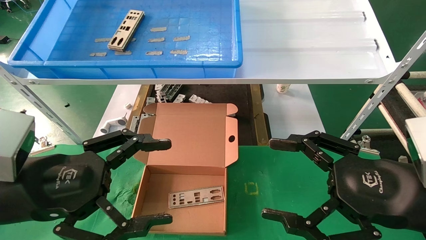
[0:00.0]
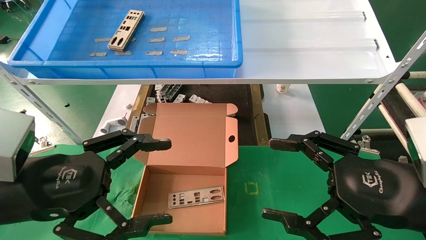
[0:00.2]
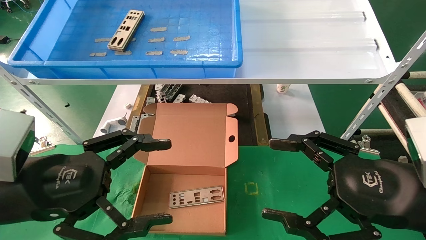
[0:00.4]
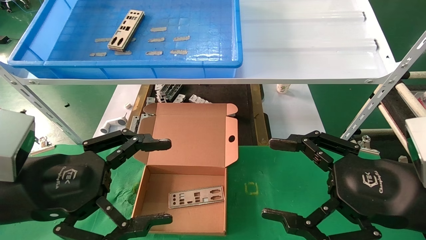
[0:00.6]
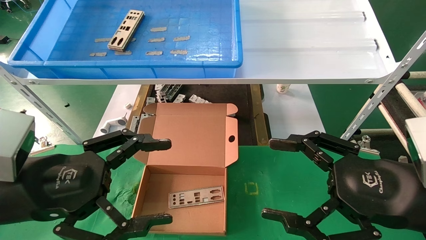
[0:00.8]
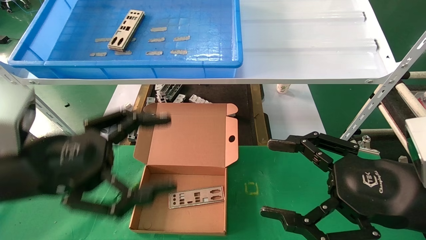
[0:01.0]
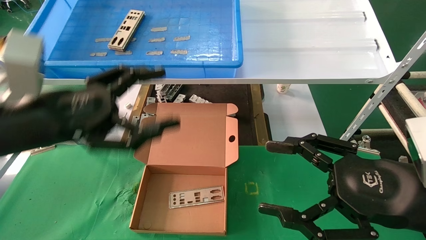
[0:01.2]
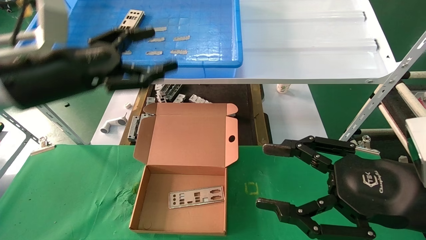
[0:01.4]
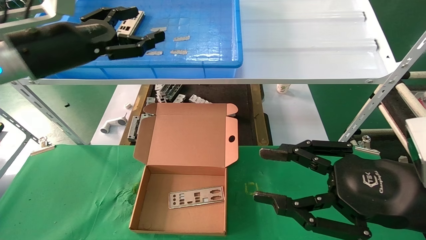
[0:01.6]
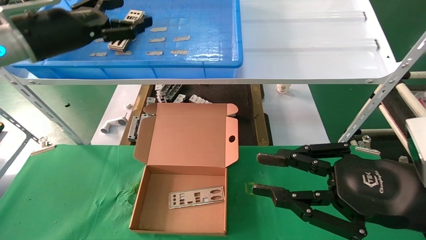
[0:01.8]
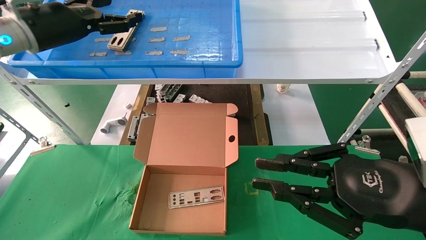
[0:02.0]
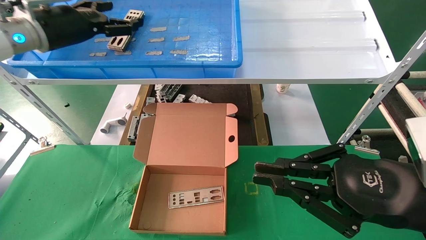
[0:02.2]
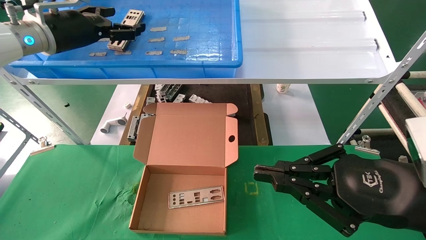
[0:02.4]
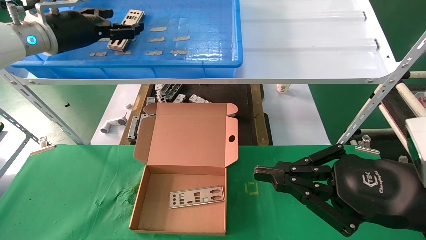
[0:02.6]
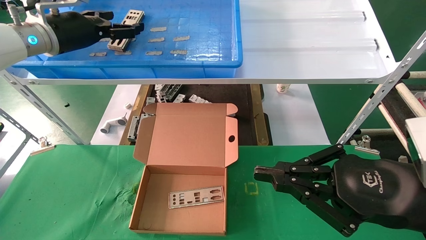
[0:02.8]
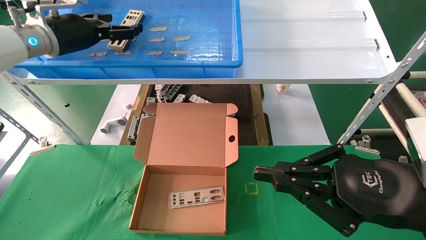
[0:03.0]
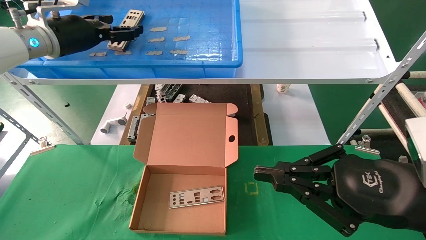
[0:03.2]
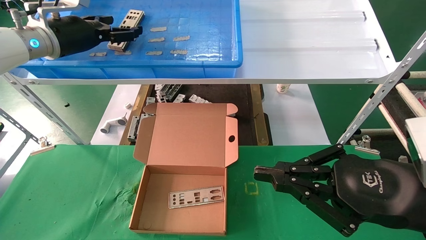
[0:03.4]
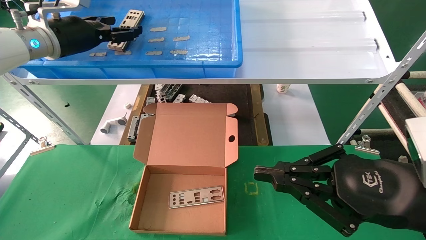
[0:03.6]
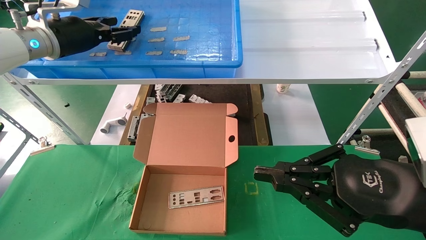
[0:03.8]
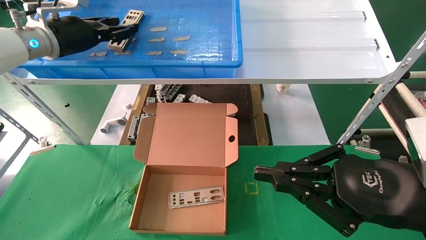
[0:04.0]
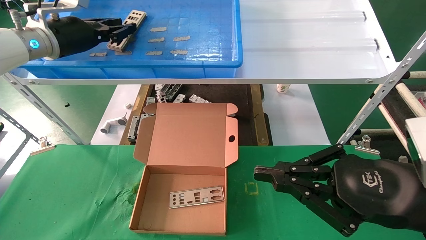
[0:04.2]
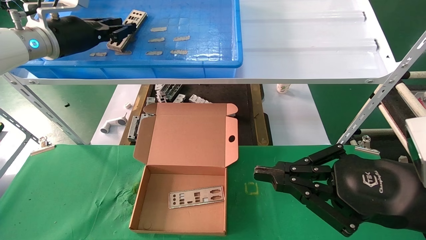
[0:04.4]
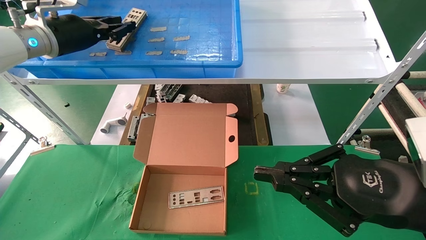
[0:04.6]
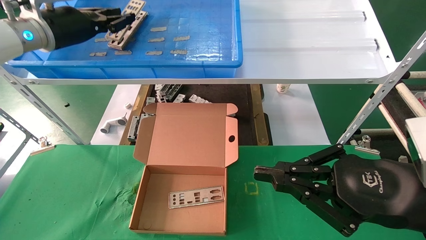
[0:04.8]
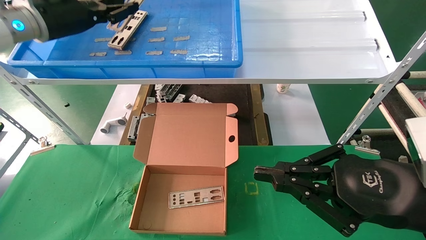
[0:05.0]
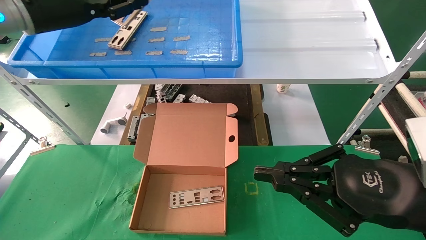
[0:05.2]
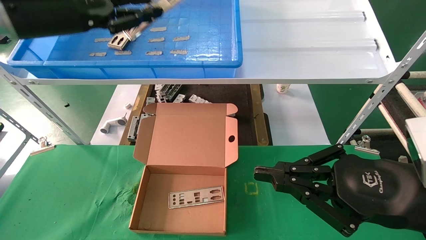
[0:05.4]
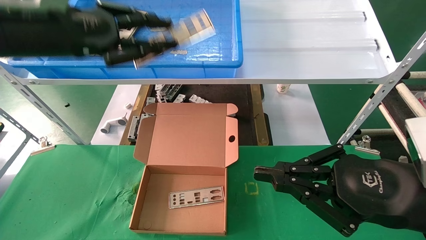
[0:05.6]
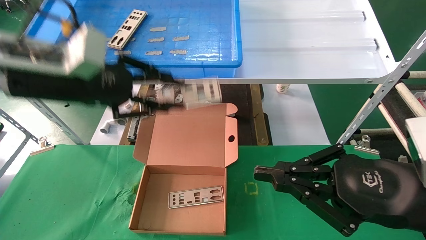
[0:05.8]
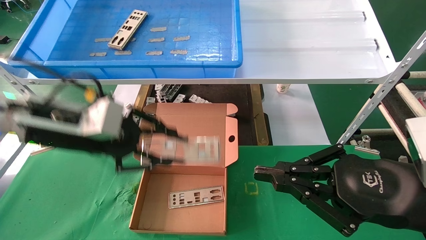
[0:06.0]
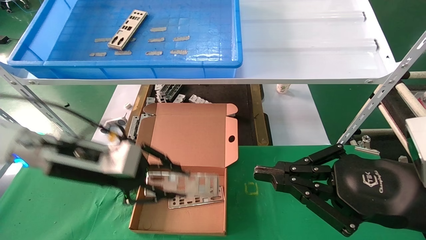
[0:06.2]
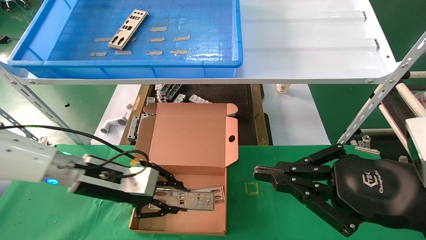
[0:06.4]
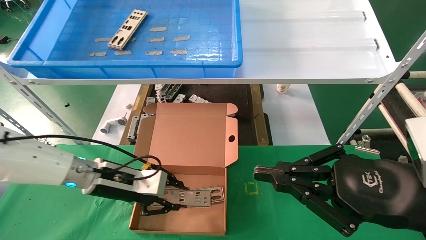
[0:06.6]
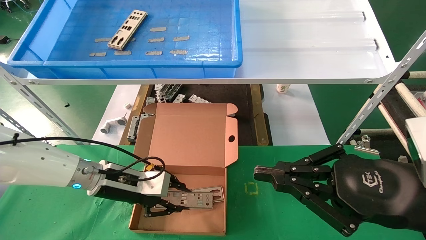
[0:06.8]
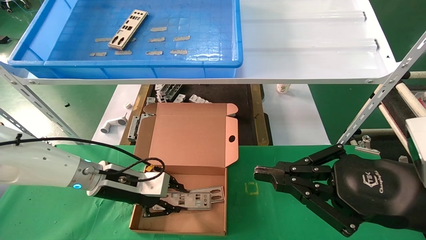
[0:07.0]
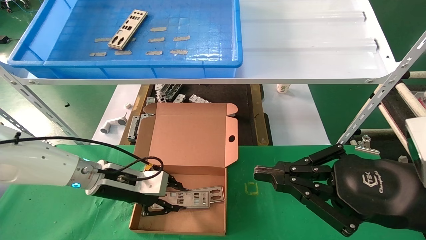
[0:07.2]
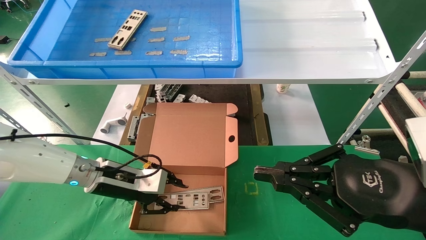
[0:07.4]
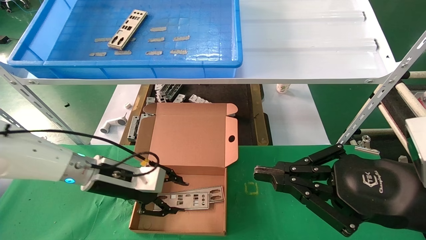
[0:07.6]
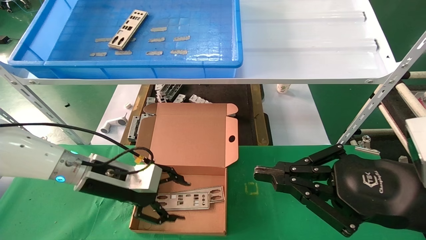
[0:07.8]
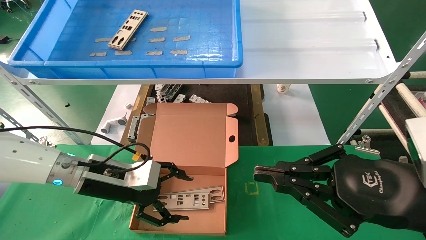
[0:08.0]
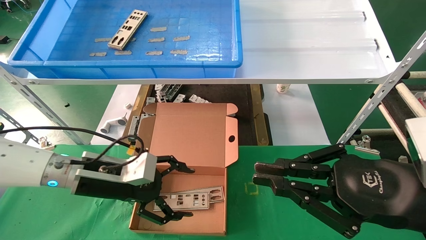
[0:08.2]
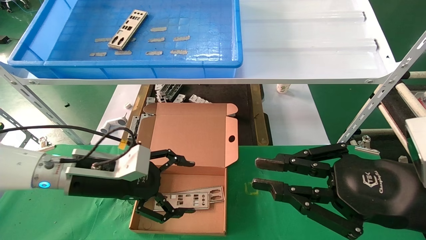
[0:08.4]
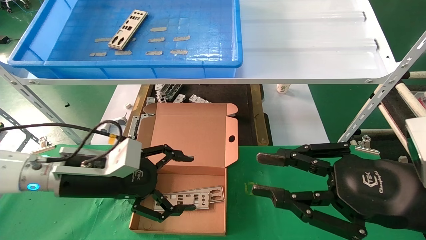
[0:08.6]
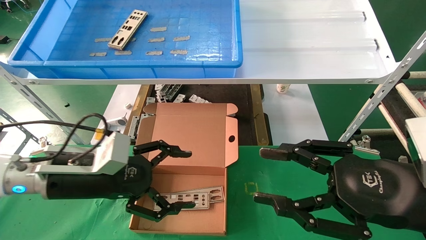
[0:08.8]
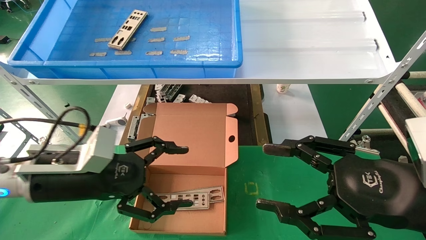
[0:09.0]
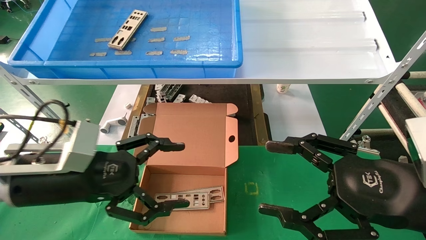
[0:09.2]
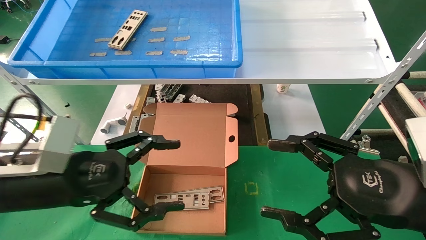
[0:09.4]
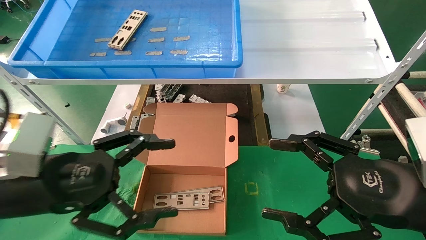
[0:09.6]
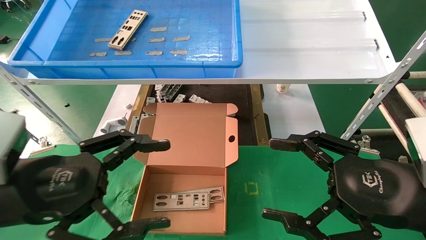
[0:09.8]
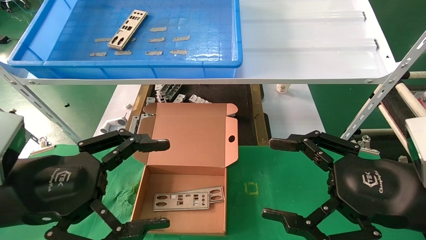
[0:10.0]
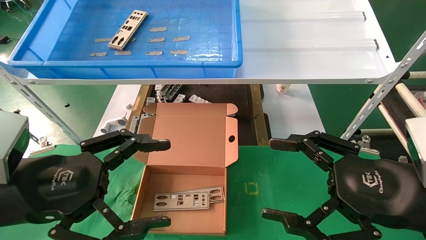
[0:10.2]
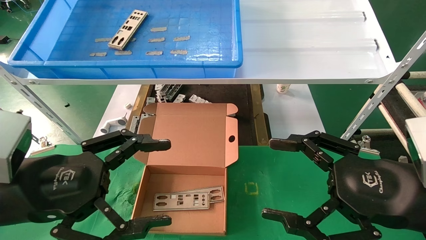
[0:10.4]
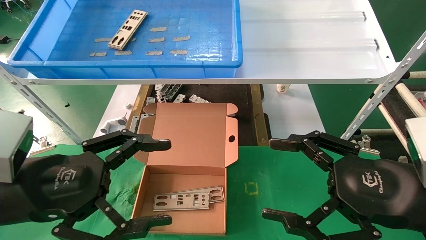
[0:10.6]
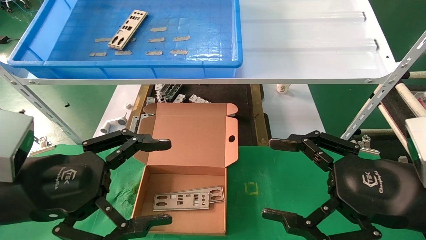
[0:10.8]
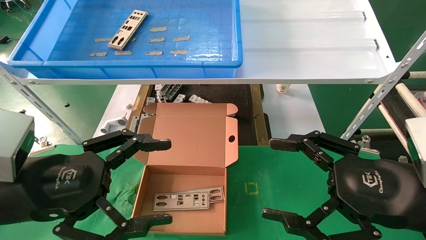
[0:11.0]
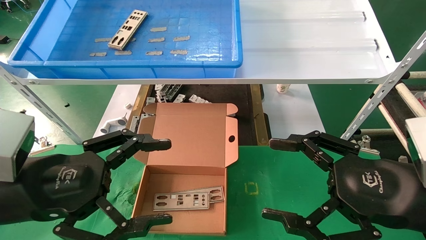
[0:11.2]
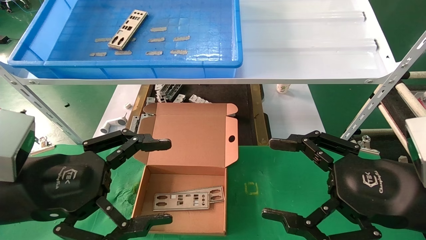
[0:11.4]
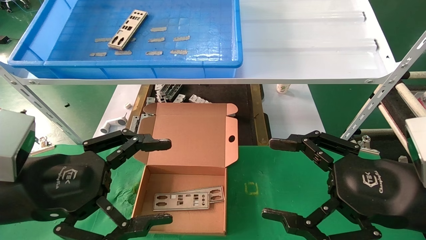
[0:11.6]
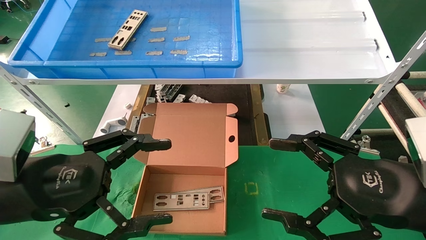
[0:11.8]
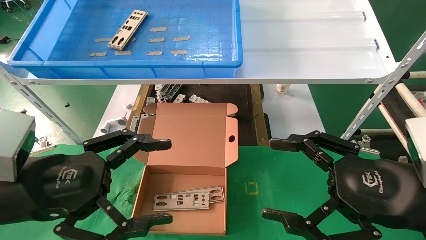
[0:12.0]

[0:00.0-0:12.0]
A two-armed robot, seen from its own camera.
Task of the whole recording: pick up the parts on the tray and put them in the cardboard box.
Step, 0:01.4 to 0:04.8: Pick up the IO bracket from the container box.
Step, 0:05.0 to 0:07.6: Place the IO bracket into the ingredient slot.
0:00.0 to 0:01.6: The left gripper shifts some 20 cm forward and upward. Meanwhile the right gripper closes.
0:01.6 to 0:03.0: The left gripper moves forward, about 10 cm, while the right gripper closes its fingers.
0:03.0 to 0:04.4: The left gripper closes its fingers.
0:04.4 to 0:06.0: The left gripper goes some 20 cm backward, downward and to the right.
0:06.0 to 0:07.6: The left gripper heads downward, covering roughly 15 cm.
0:07.6 to 0:09.0: The left gripper shifts some 10 cm backward and upward, and opens; the right gripper opens up.
0:09.0 to 0:10.4: The left gripper heads backward, covering some 10 cm, while the right gripper opens up.
0:10.4 to 0:12.0: Both grippers stay put.

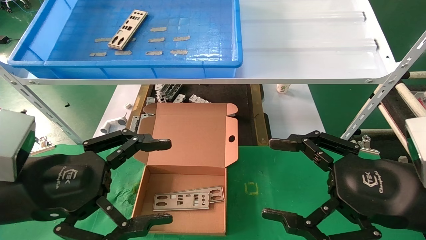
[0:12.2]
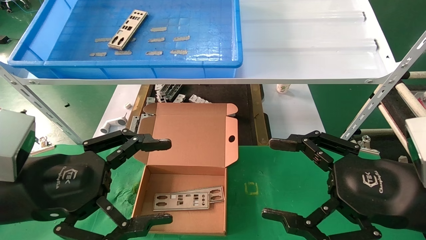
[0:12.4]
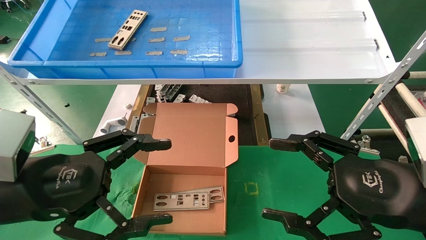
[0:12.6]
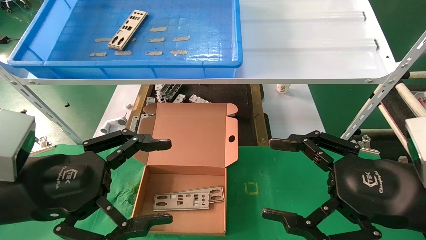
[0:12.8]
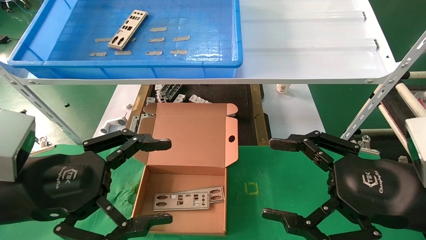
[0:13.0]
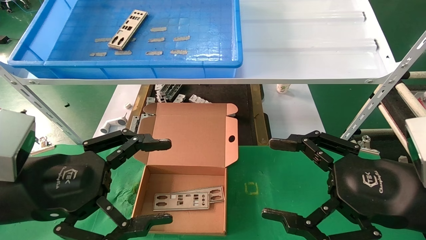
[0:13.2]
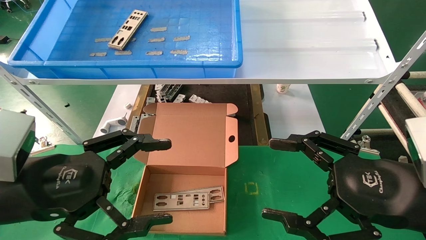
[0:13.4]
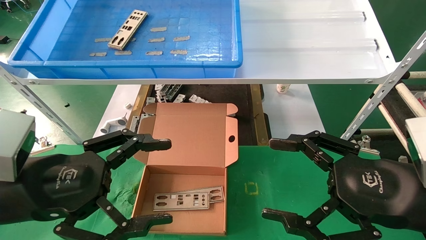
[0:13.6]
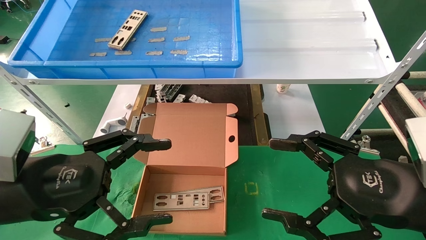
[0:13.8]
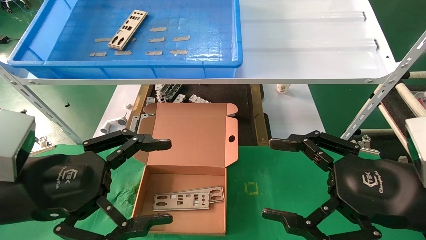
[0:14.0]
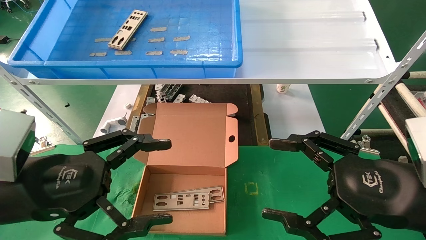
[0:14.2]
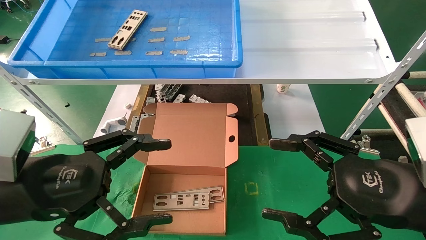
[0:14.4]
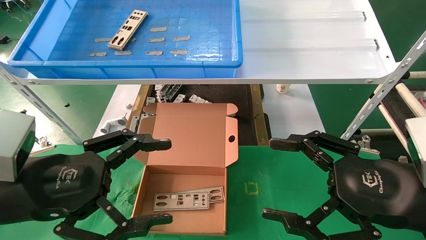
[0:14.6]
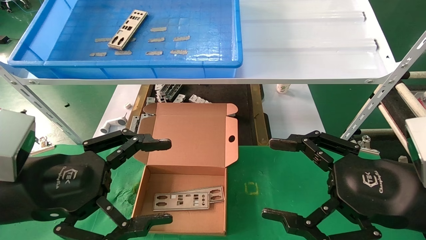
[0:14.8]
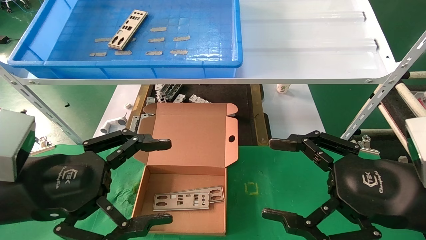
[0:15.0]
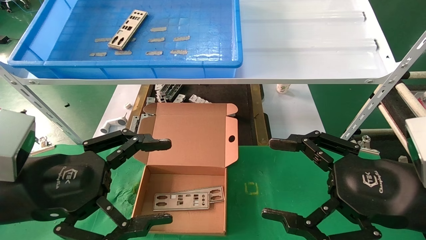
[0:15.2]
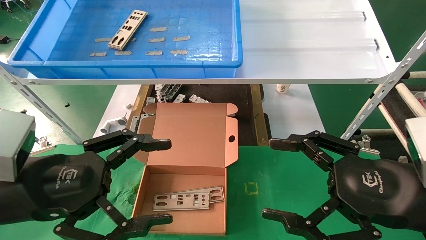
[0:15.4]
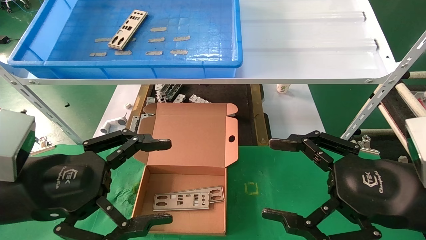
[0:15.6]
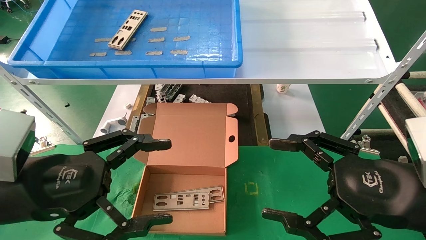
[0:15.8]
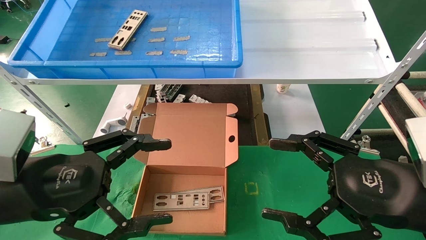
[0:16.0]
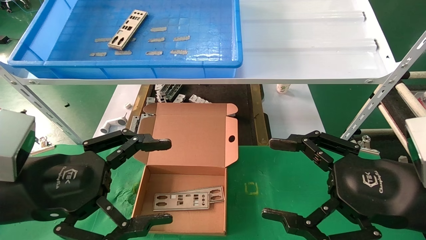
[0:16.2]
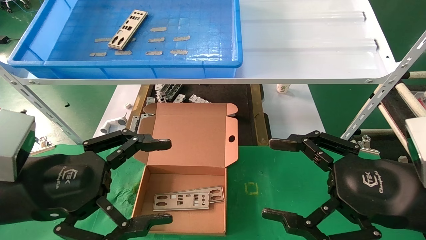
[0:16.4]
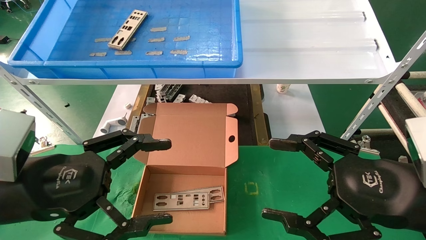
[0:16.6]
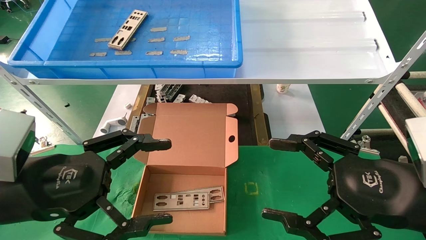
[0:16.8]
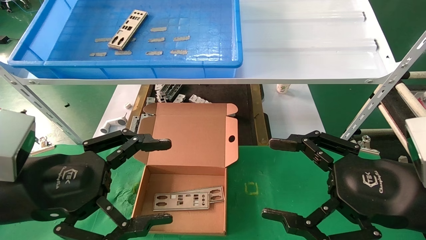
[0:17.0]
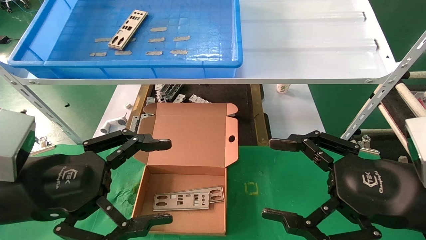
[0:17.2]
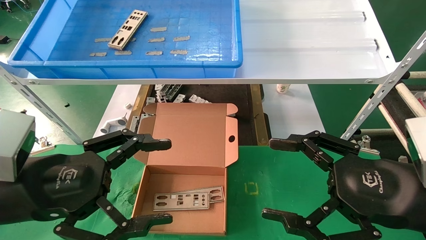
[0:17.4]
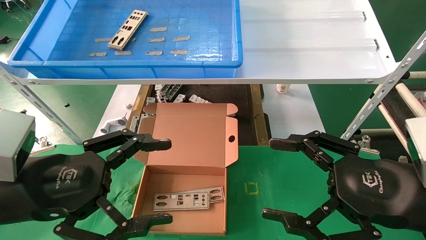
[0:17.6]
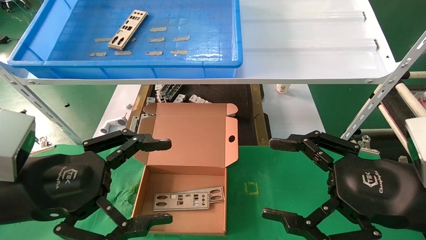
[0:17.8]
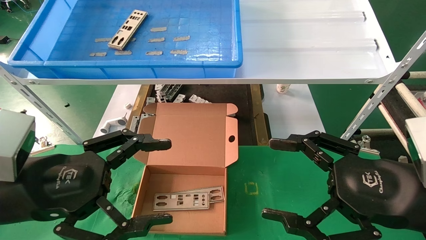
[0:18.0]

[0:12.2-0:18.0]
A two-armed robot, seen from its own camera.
Task of the whole recording: pick up the parts on the tray and put them in the cardboard box.
0:12.2 to 0:18.0: Both grippers stay put.
